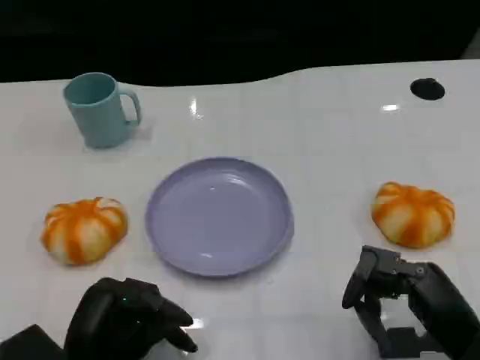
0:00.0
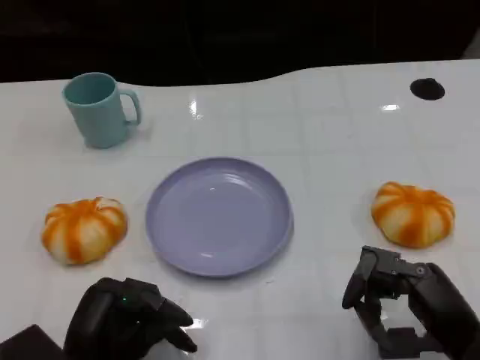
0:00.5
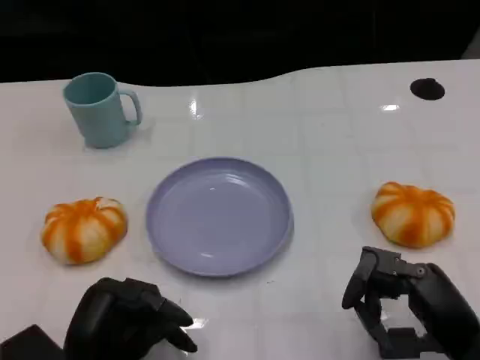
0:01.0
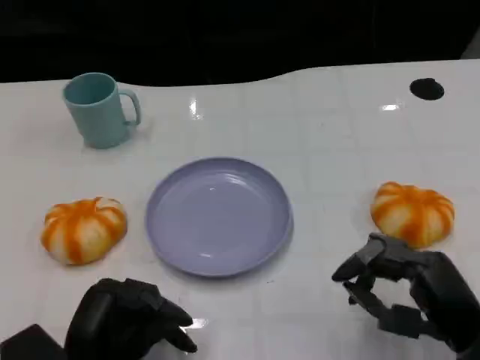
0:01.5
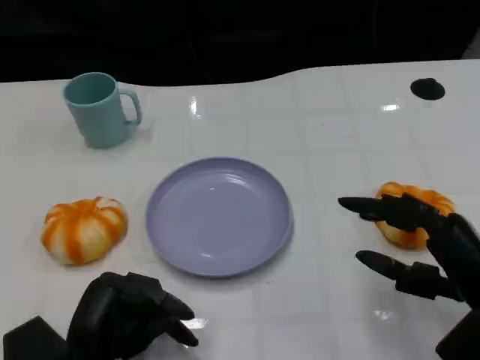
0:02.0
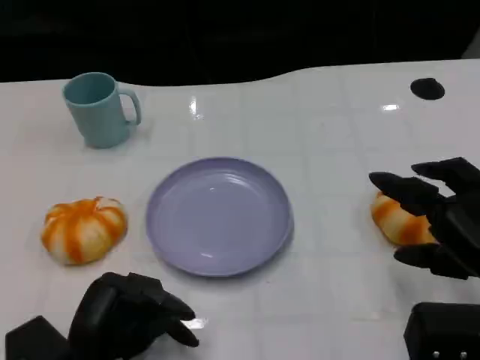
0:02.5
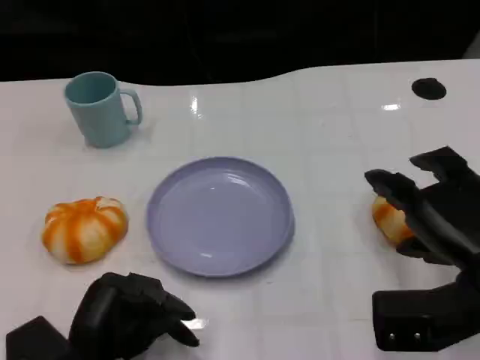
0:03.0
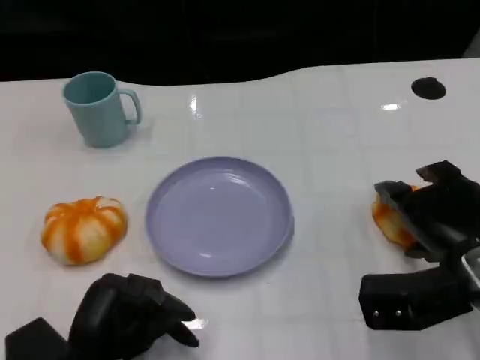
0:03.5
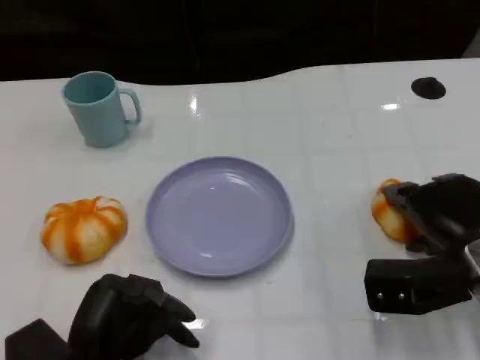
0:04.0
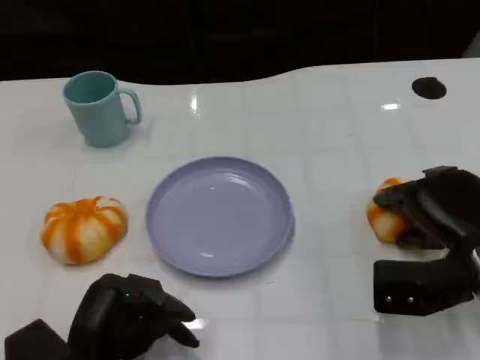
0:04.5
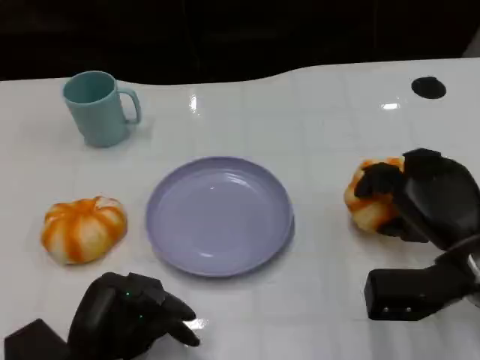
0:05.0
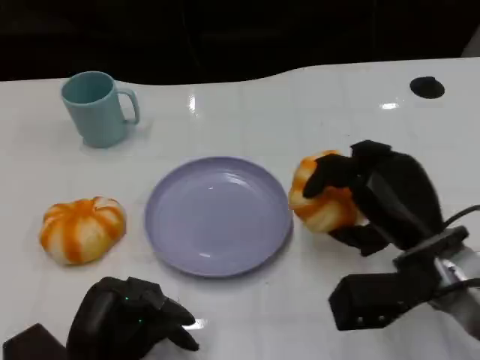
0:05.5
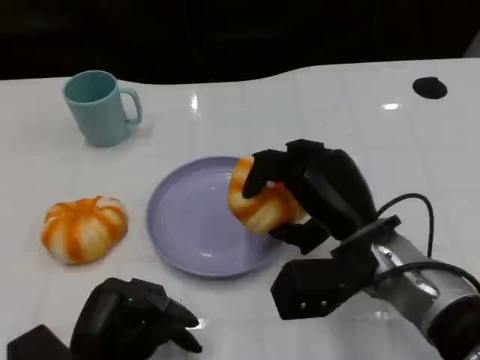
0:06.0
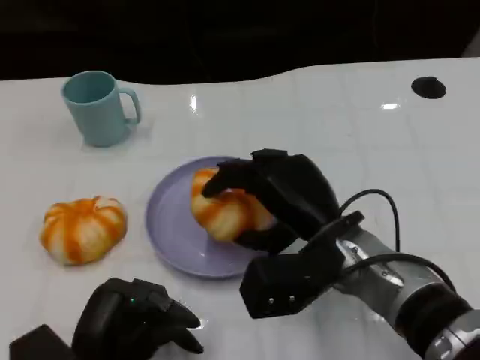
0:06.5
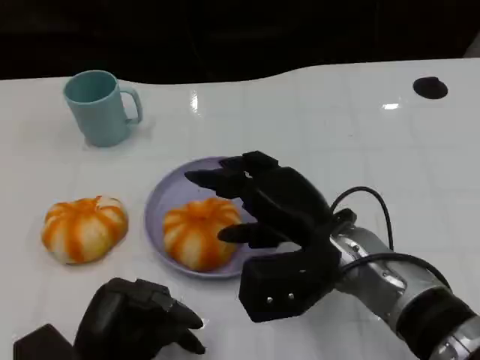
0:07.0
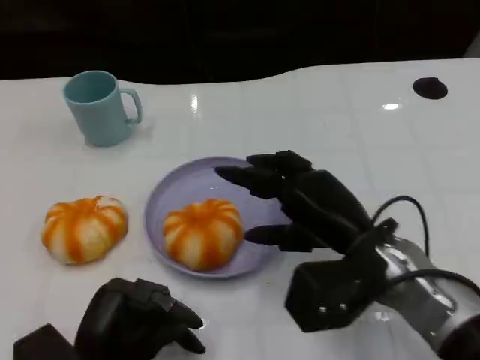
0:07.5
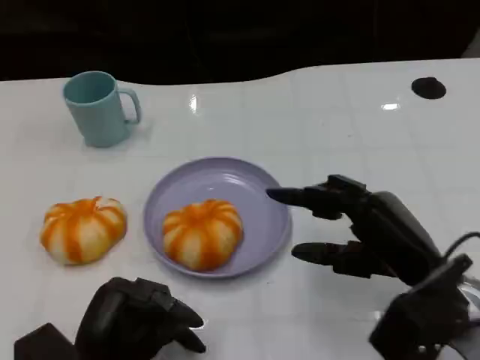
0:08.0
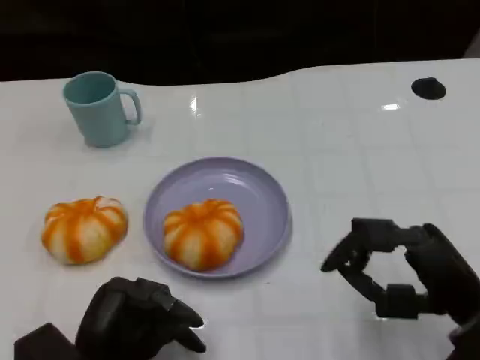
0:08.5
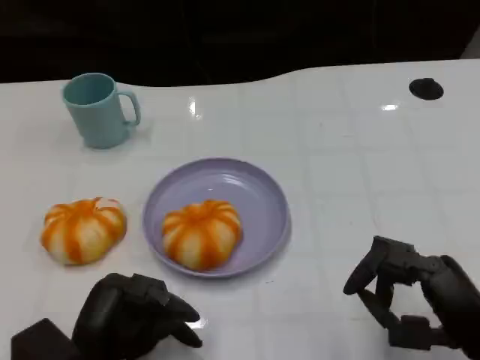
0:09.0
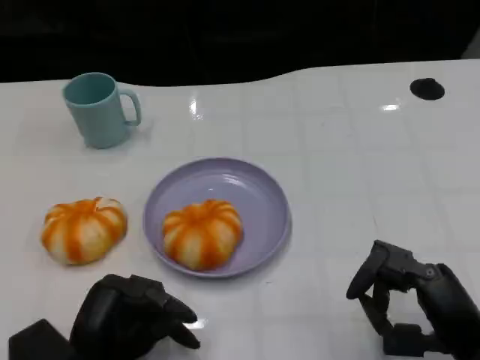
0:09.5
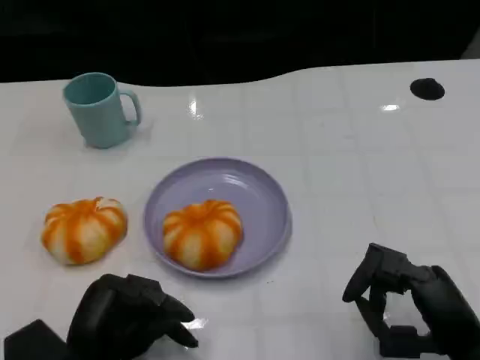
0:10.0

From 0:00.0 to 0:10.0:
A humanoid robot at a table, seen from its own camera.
Task of the whole recording: Grasp the bread from the table and place it into the plate.
From 0:02.0 to 0:04.0: The right hand goes about 5 cm forward.
From 0:04.0 to 0:06.0: The right hand shifts roughly 10 cm to the left.
From 0:06.0 to 0:08.0: The right hand moves to the right, roughly 5 cm.
From 0:08.0 to 0:10.0: The right hand moves backward, about 5 cm.

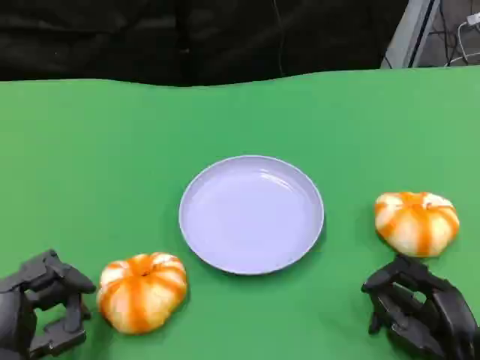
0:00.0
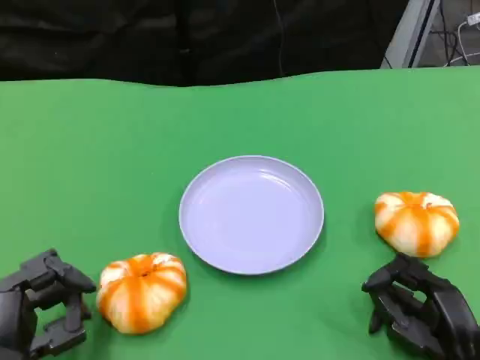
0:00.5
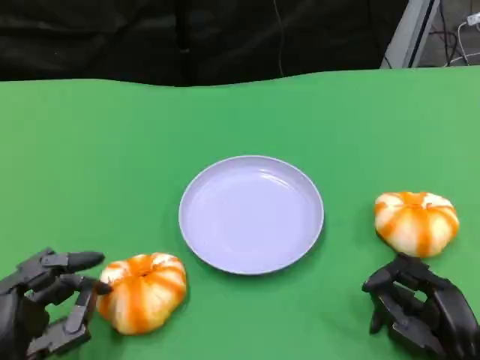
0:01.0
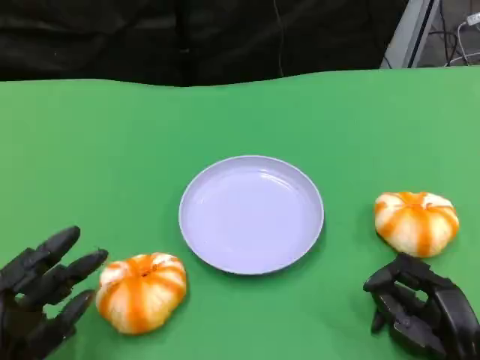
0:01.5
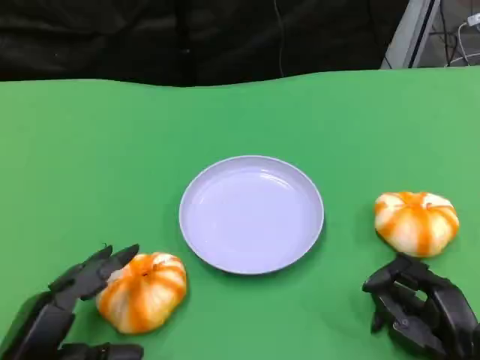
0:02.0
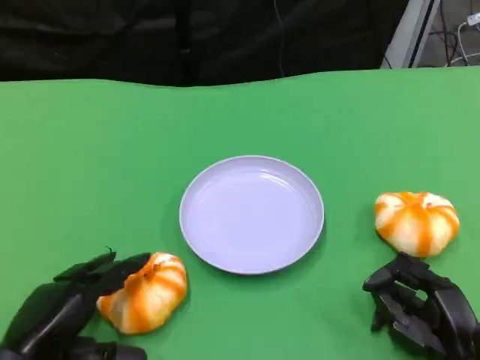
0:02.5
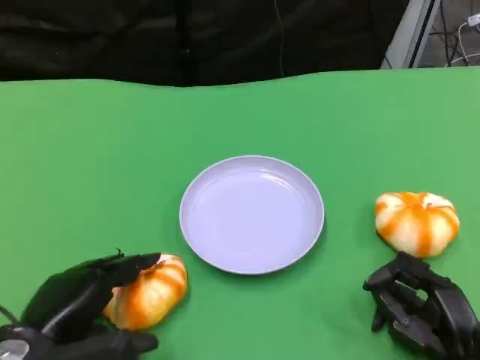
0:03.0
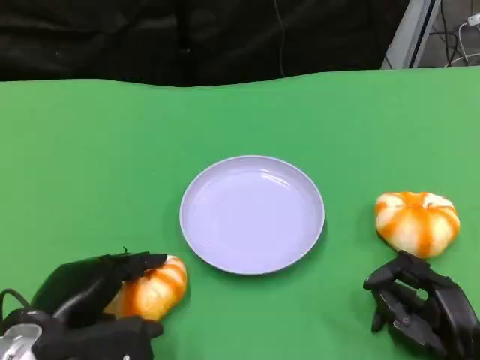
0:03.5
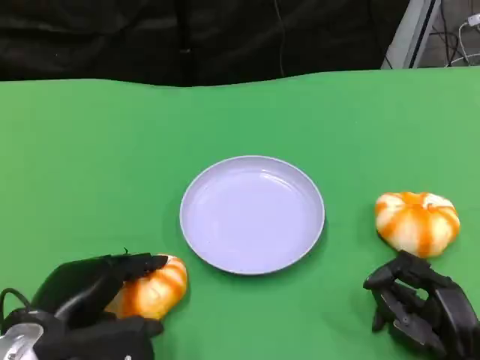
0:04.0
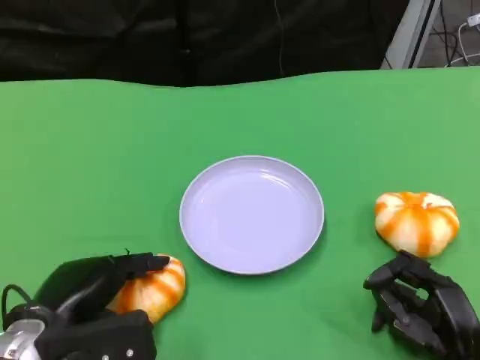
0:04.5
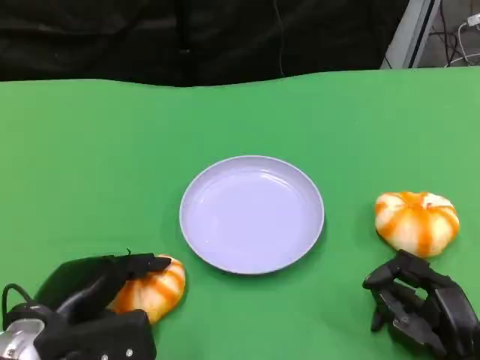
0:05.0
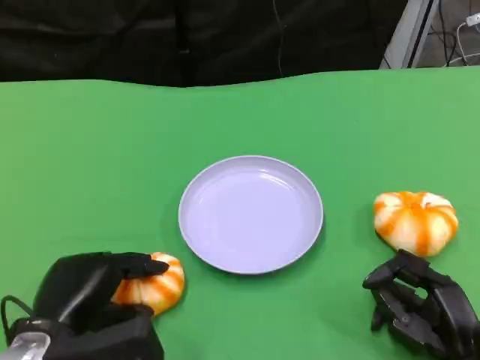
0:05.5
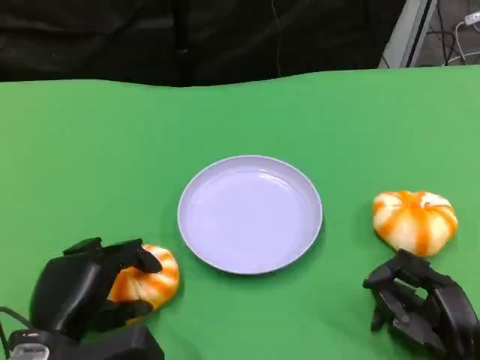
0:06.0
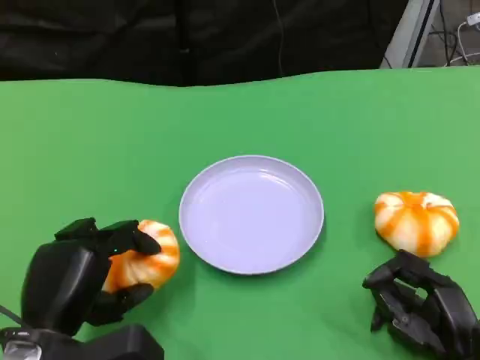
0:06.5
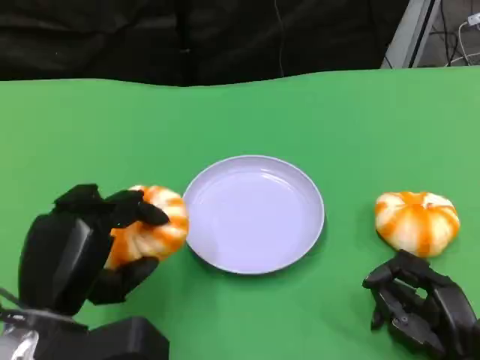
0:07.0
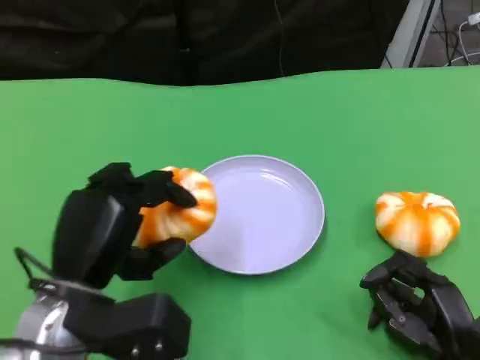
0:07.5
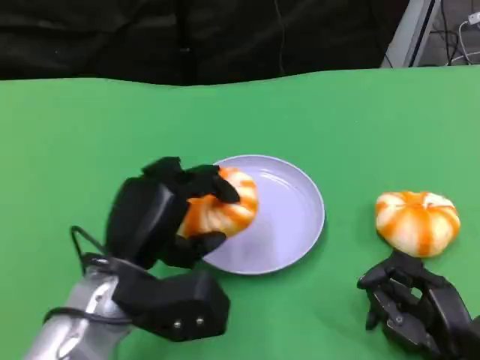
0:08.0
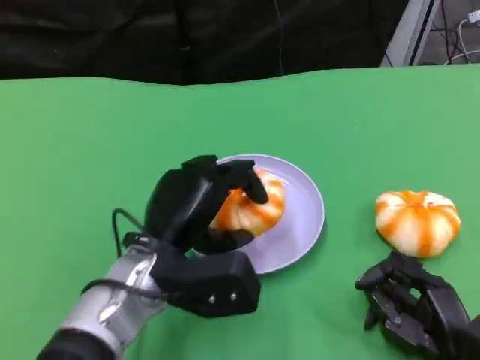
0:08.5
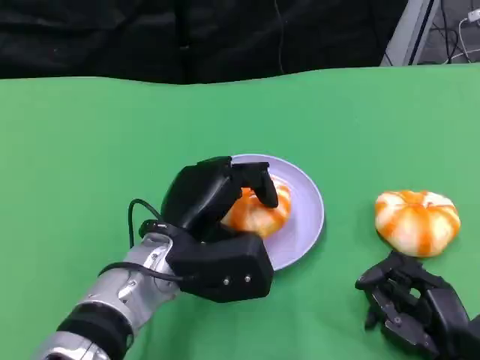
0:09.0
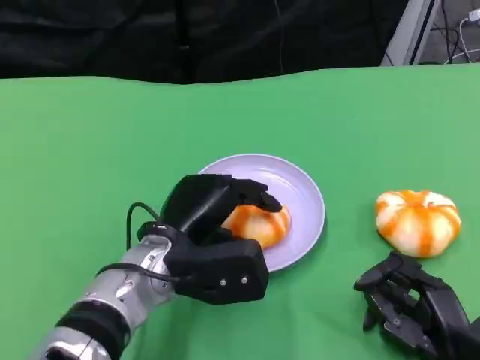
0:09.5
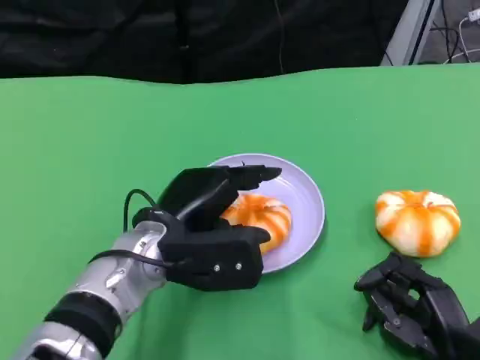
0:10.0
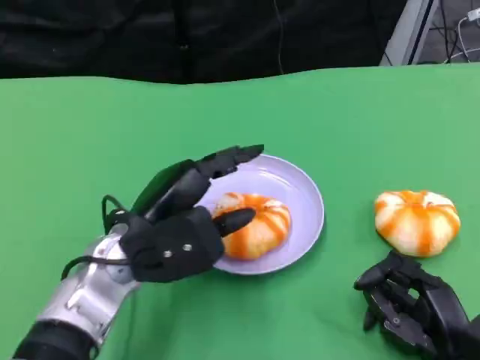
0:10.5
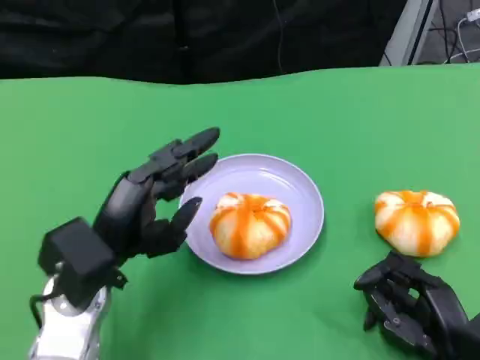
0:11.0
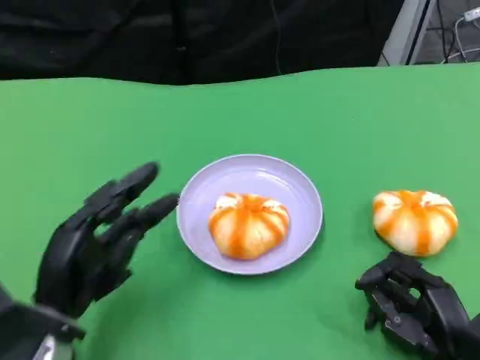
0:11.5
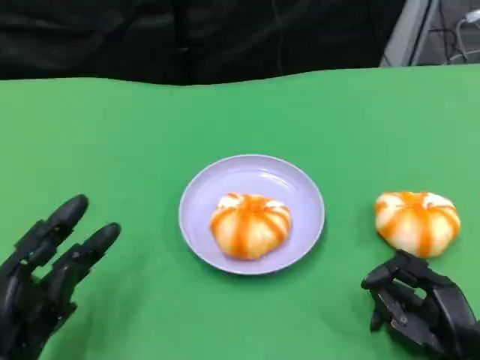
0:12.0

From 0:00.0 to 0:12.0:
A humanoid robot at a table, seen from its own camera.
Task of the whole recording: Grasp the bread from the table and place it into the plate.
From 0:02.0 to 0:04.0: The left hand moves roughly 5 cm.
From 0:06.0 to 0:08.0: The left hand heads to the right and forward, covering approximately 10 cm.
From 0:08.0 to 0:10.0: The left hand changes place by some 5 cm.
From 0:10.0 to 0:12.0: The left hand is displaced to the left, backward and downward by roughly 20 cm.

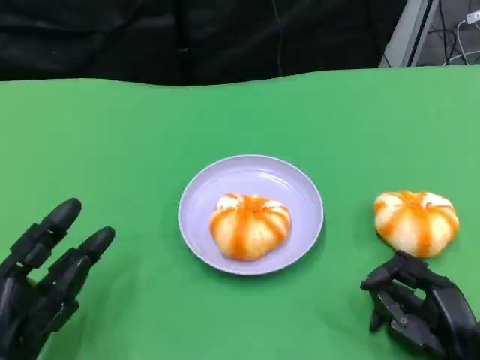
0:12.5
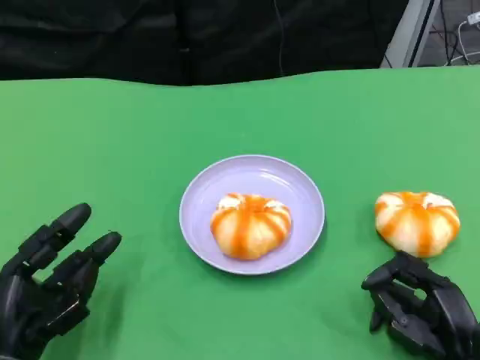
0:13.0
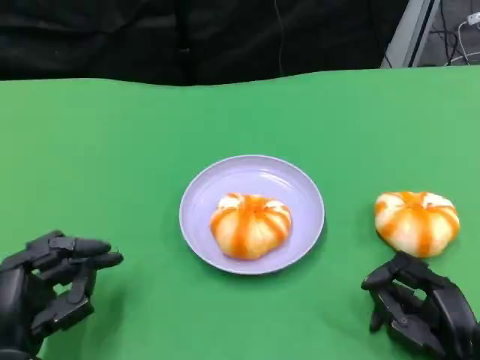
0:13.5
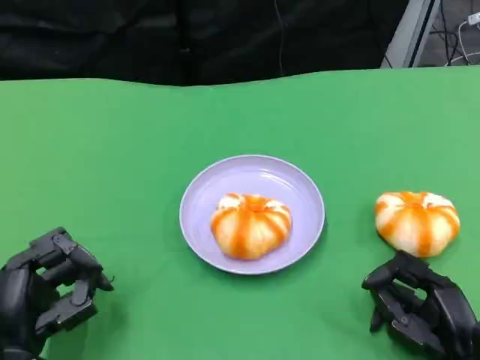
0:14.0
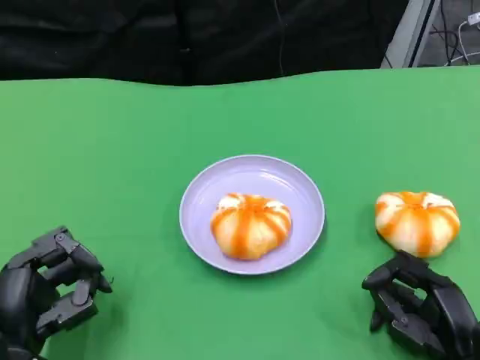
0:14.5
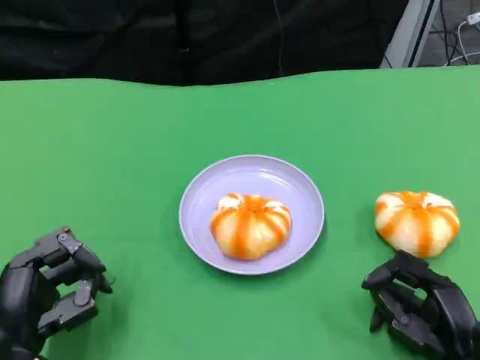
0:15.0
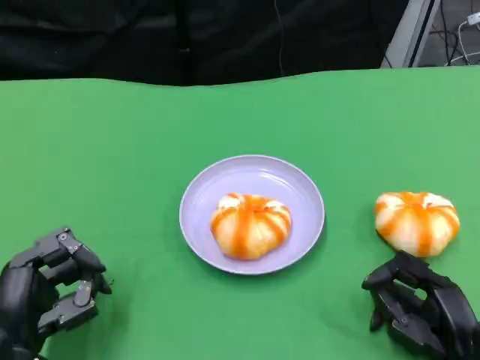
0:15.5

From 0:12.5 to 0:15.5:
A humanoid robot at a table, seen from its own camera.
Task of the whole recording: Grasp the bread from the table and place it into the plate.
From 0:12.5 to 0:14.0: The hands stay close to where they were, moving slightly.
From 0:14.0 to 0:15.5: Both hands stay about where they are.

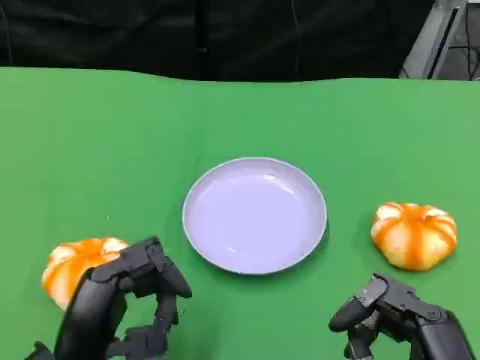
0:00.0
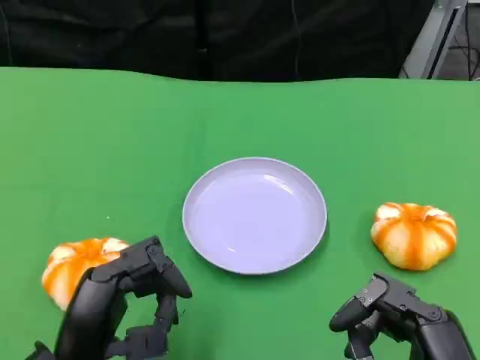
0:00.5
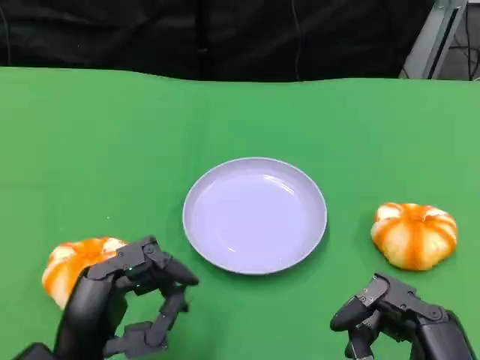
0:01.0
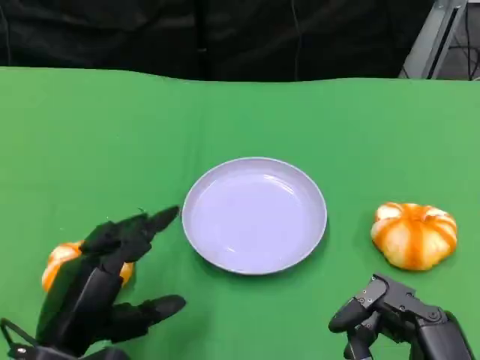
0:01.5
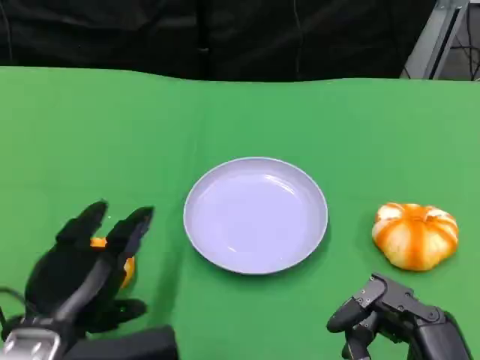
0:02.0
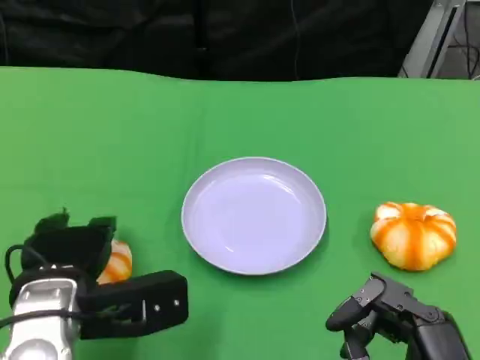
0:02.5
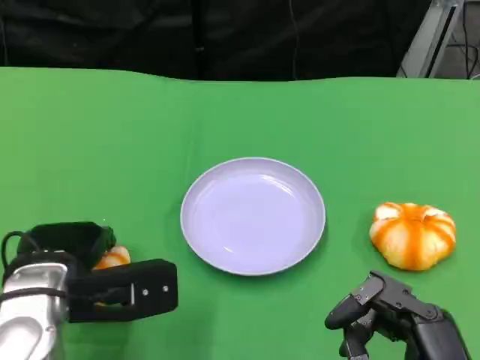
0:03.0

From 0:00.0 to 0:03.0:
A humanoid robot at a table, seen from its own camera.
Task of the whole recording: Grasp the bread from the table and place it into the plate.
From 0:01.5 to 0:03.0: The left hand shifts roughly 5 cm forward.
